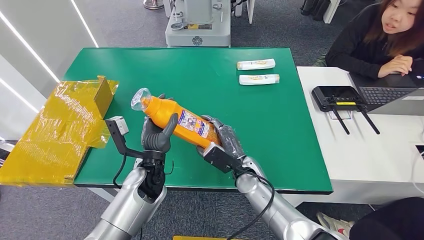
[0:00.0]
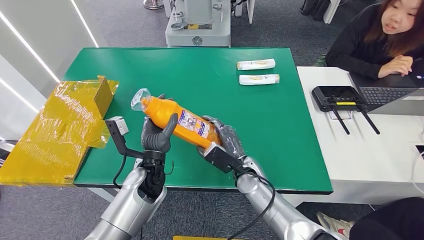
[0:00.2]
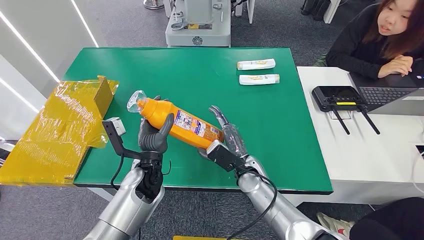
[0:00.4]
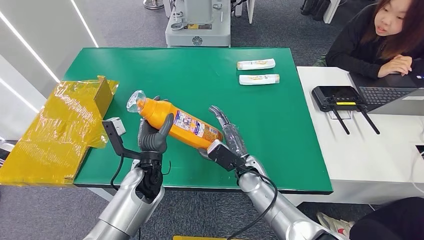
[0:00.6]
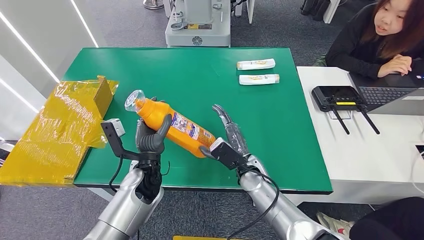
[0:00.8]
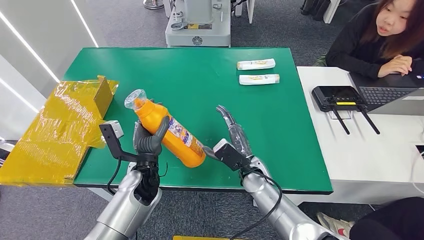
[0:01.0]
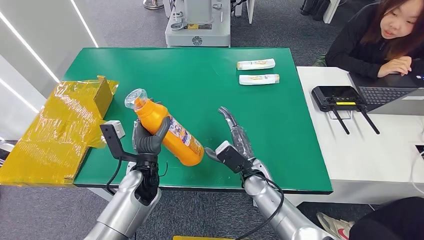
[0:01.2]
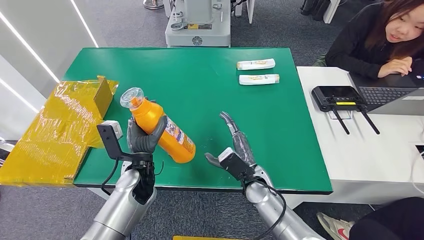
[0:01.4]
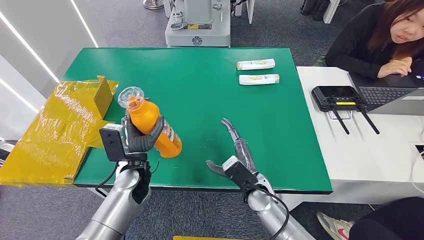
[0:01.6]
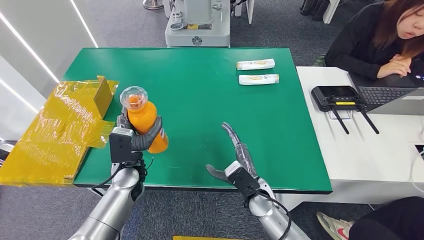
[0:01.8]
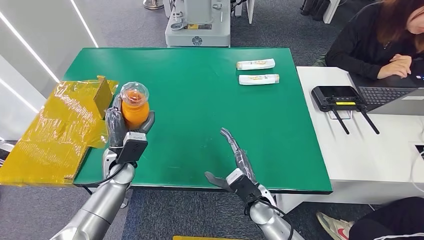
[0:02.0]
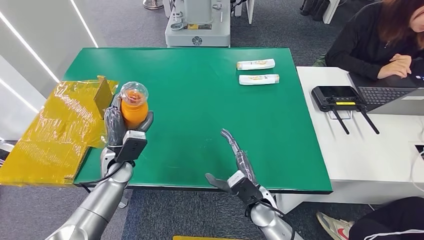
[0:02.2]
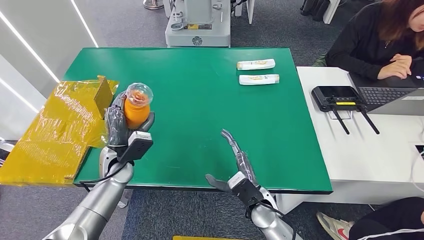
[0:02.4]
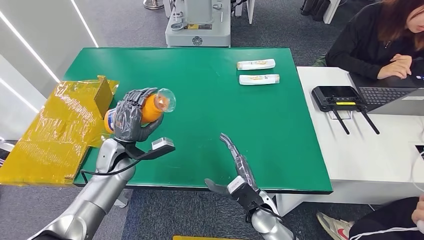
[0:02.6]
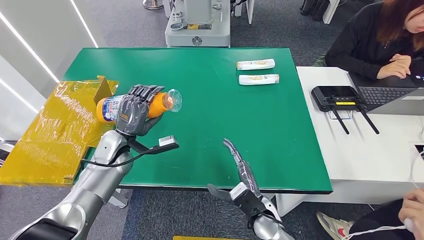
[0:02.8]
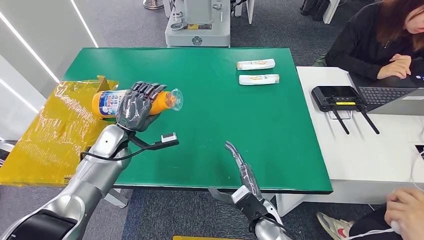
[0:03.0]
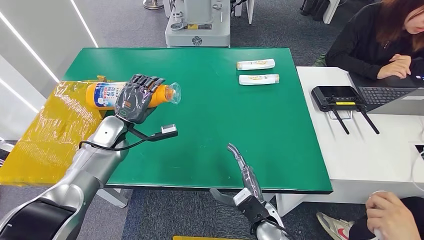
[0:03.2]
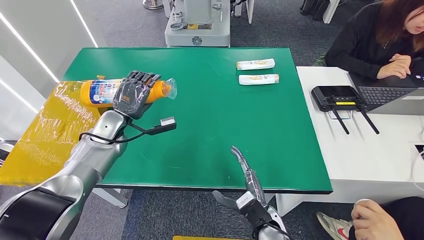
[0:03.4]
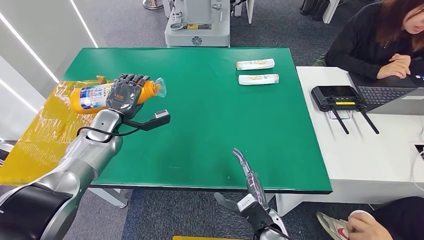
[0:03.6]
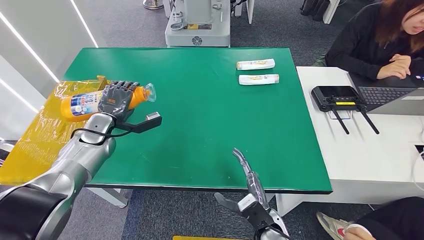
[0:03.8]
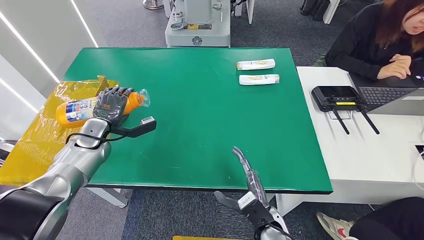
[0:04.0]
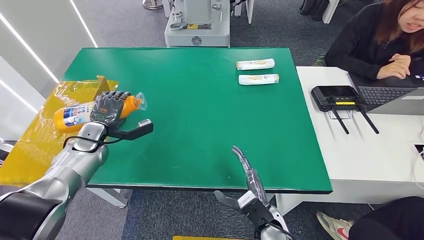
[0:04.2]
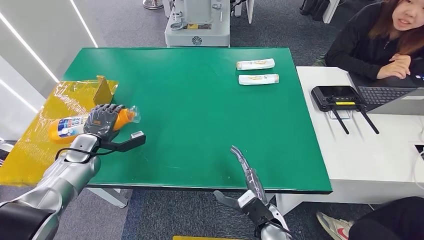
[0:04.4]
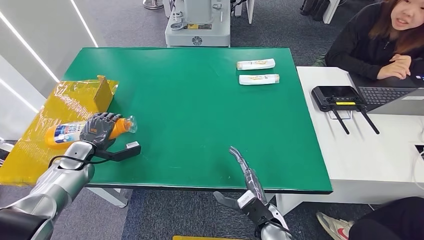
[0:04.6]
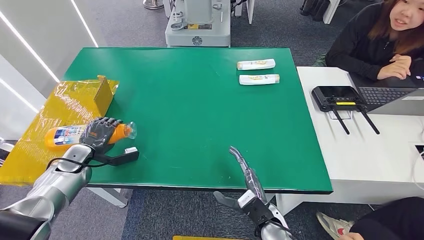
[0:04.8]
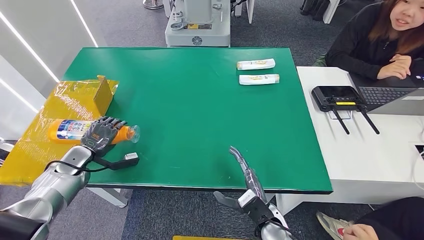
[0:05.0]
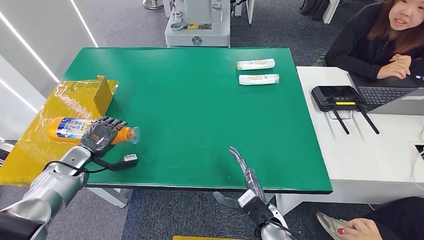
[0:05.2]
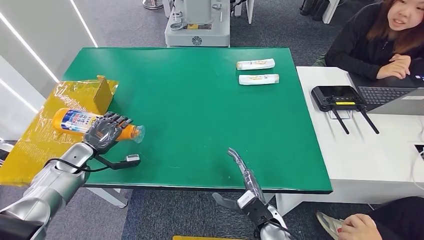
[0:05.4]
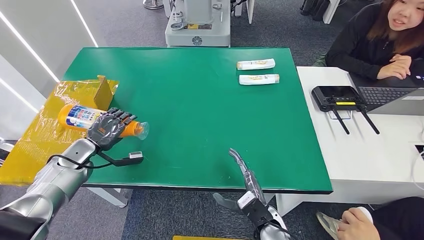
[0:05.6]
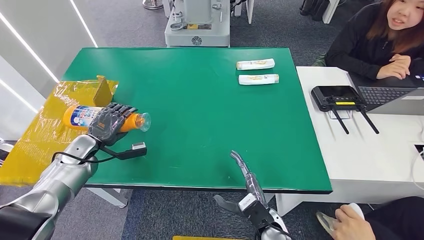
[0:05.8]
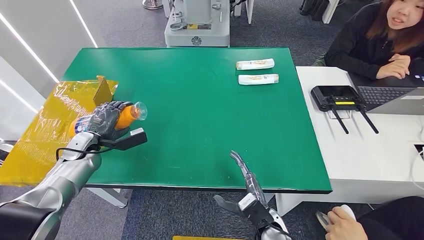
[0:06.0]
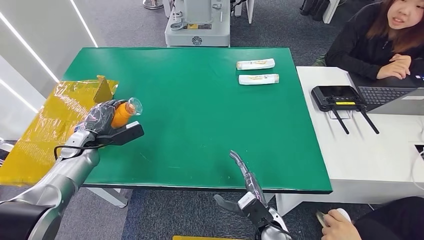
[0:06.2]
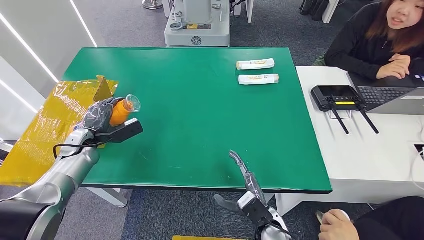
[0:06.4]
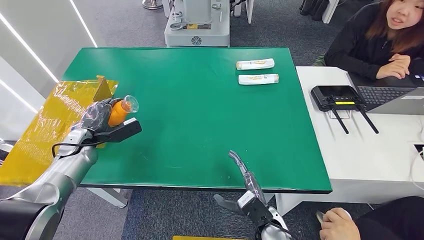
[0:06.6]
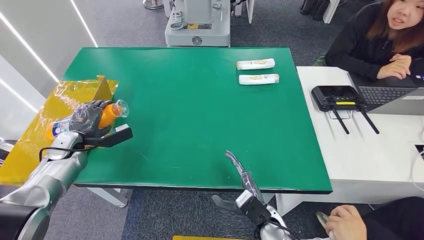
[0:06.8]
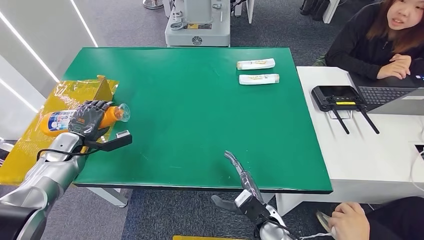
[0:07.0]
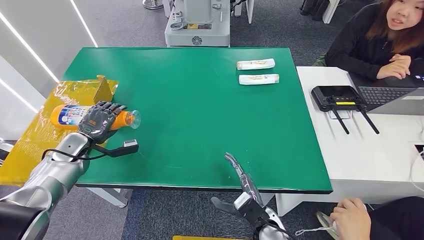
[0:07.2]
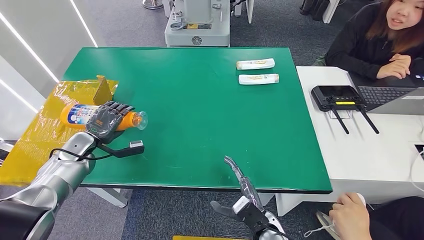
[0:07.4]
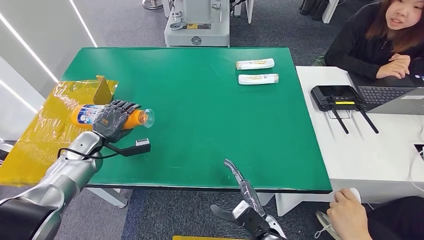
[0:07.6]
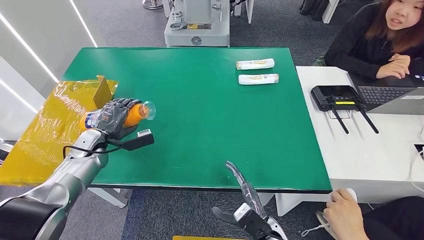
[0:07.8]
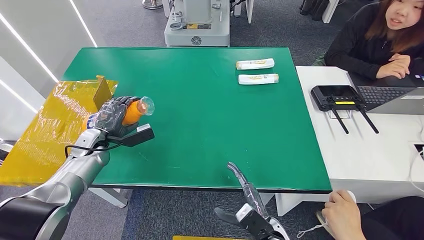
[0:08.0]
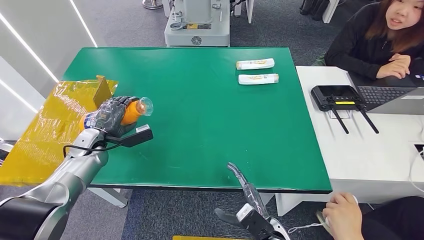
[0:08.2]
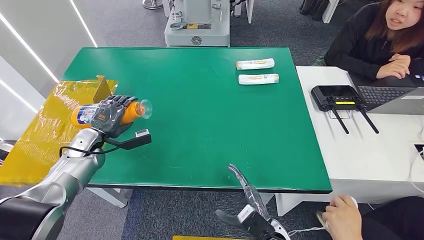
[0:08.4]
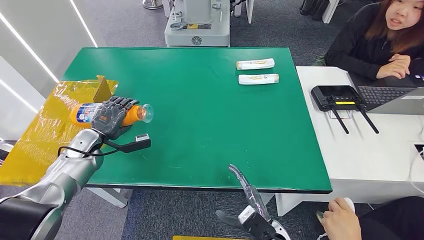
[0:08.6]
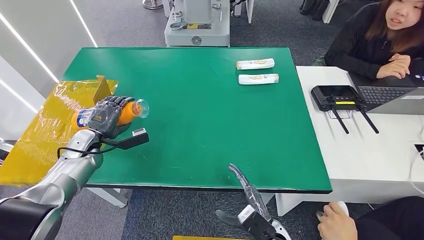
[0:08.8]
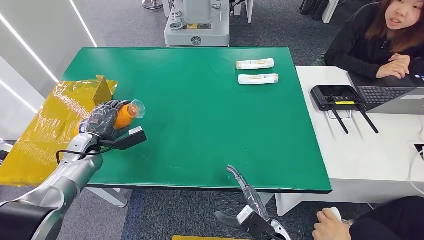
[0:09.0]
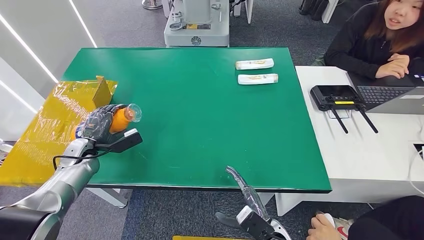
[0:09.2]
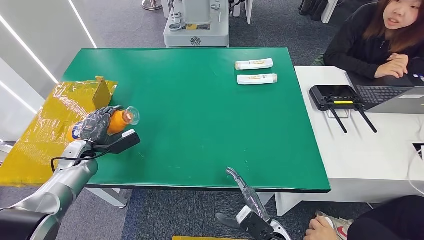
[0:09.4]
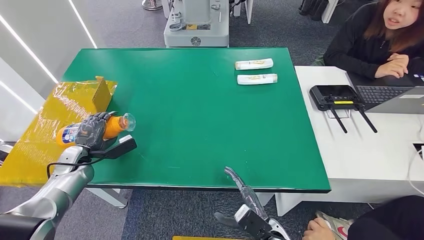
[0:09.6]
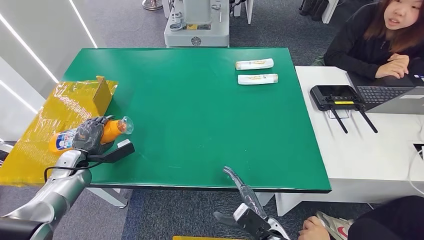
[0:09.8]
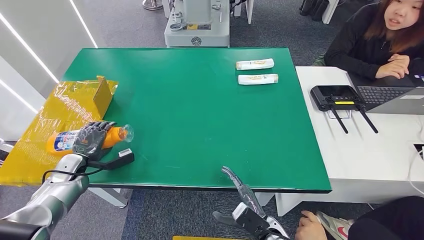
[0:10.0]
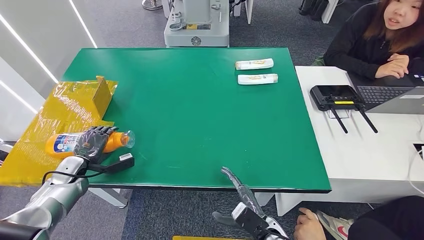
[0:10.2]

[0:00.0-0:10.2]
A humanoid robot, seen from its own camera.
0:00.0 to 0:01.4: The hands make only small movements.
0:01.4 to 0:03.0: The left hand travels to the left and forward by some 10 cm, while the right hand travels backward by some 10 cm.
0:03.0 to 0:04.4: The left hand travels to the left by roughly 10 cm.
0:08.8 to 0:10.2: The left hand heads downward, backward and to the left, covering approximately 10 cm.

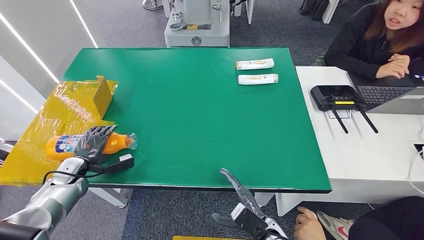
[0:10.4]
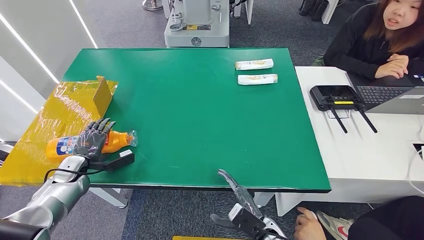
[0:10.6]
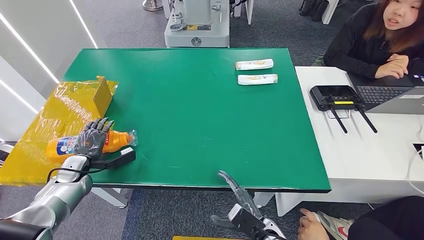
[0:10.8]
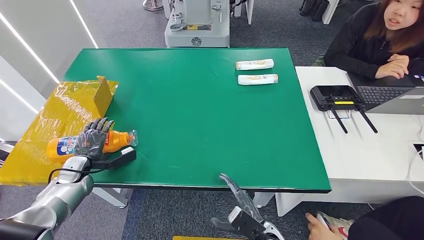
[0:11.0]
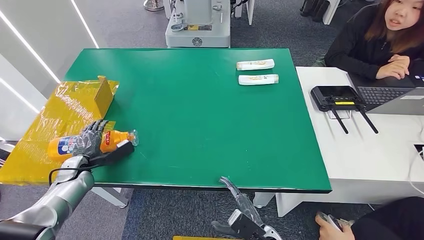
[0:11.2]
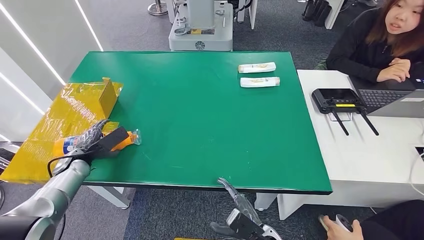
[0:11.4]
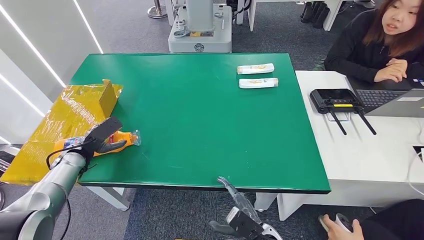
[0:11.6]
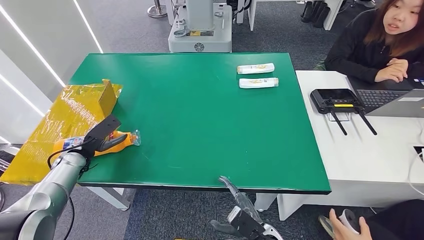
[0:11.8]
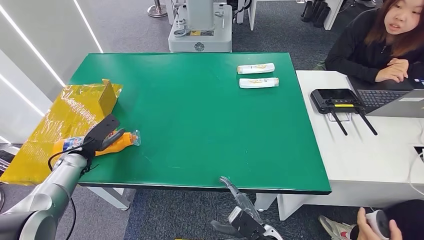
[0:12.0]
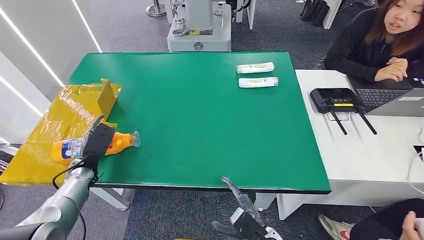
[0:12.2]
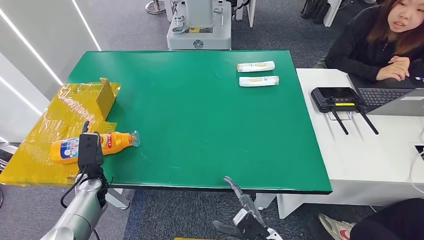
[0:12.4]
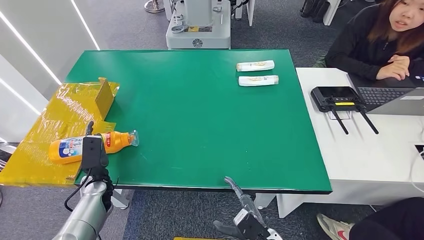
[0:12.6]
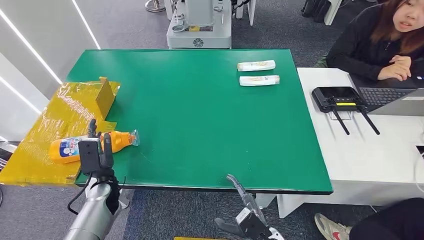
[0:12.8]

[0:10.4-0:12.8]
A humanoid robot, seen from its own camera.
Step, 0:10.4 to 0:12.6: Turn the bottle to the front side.
